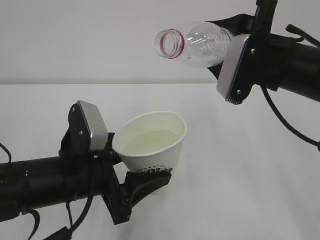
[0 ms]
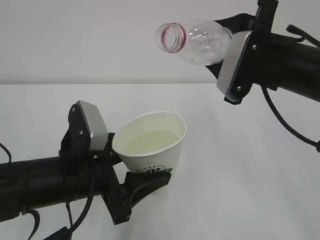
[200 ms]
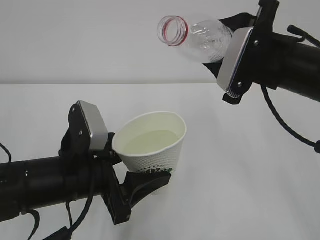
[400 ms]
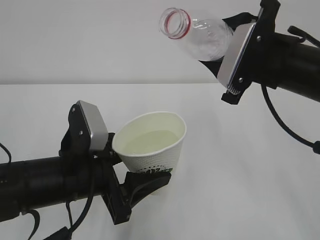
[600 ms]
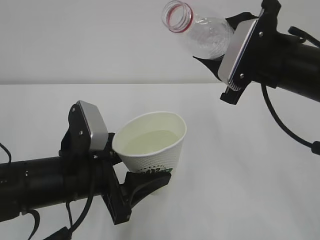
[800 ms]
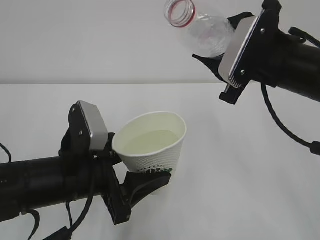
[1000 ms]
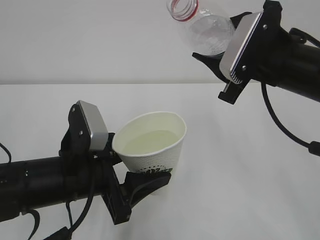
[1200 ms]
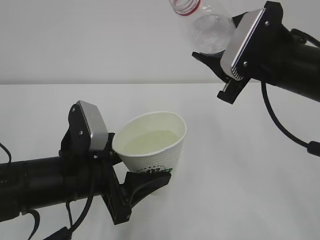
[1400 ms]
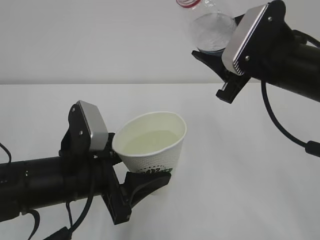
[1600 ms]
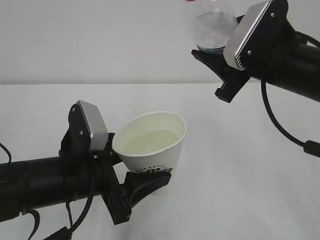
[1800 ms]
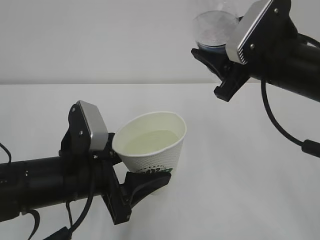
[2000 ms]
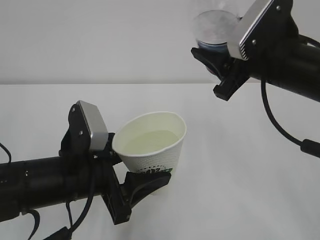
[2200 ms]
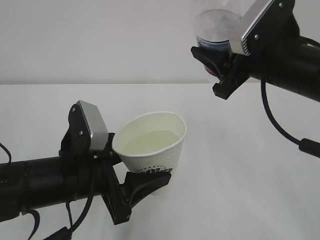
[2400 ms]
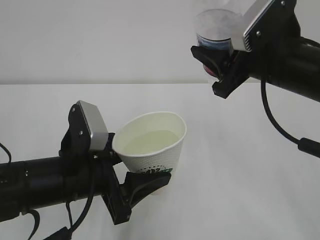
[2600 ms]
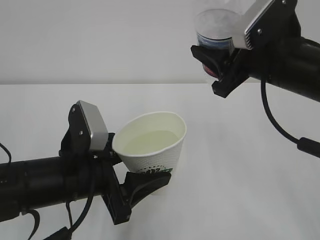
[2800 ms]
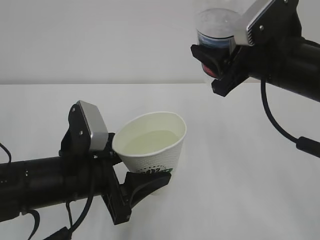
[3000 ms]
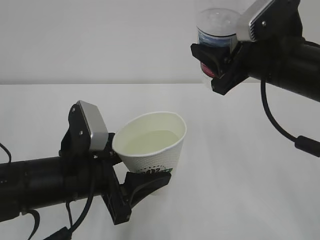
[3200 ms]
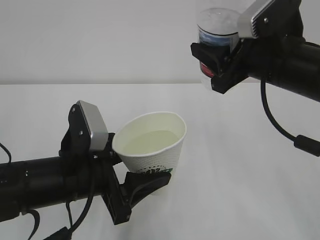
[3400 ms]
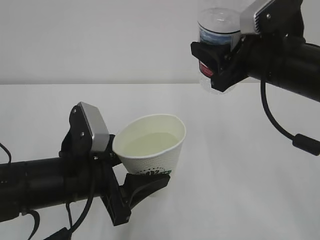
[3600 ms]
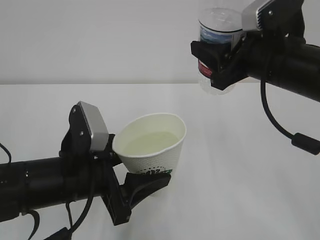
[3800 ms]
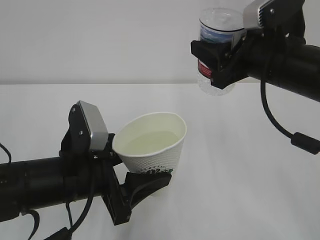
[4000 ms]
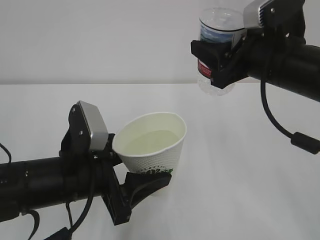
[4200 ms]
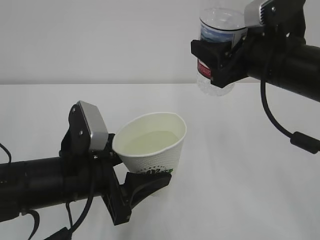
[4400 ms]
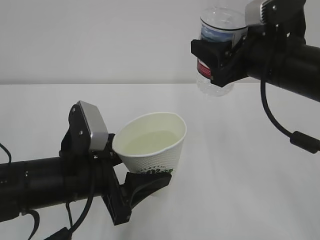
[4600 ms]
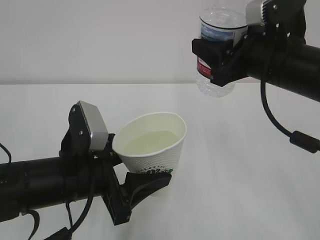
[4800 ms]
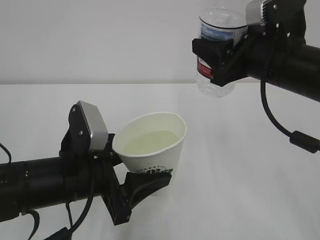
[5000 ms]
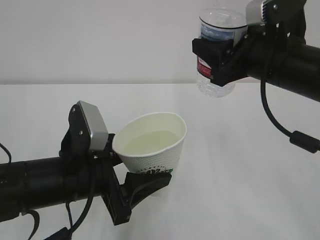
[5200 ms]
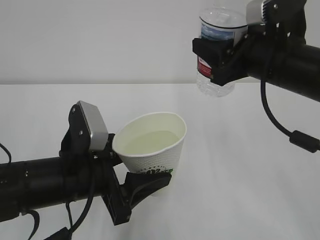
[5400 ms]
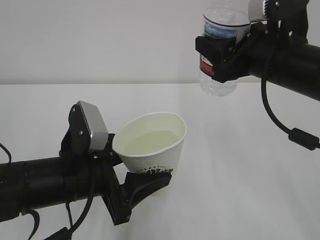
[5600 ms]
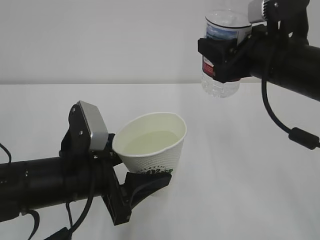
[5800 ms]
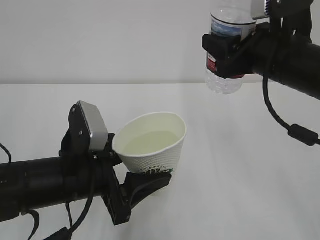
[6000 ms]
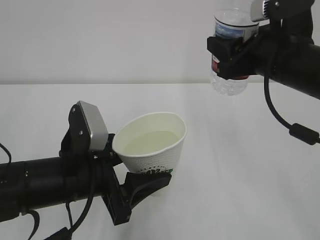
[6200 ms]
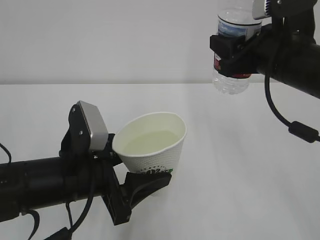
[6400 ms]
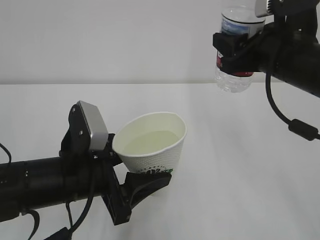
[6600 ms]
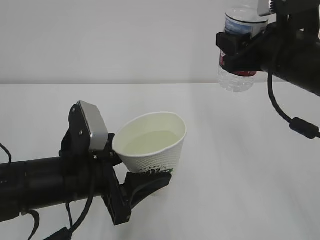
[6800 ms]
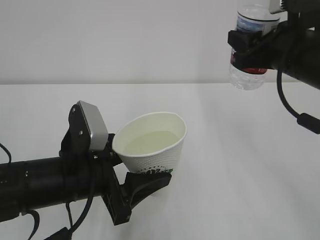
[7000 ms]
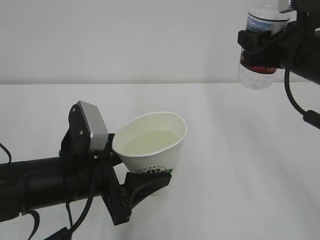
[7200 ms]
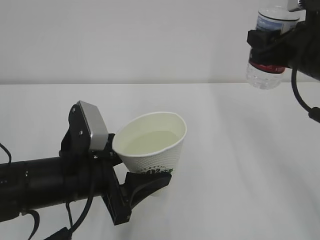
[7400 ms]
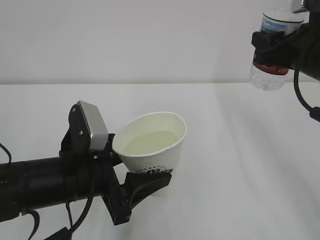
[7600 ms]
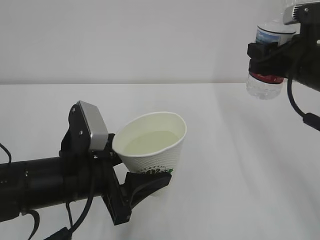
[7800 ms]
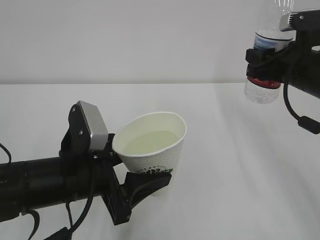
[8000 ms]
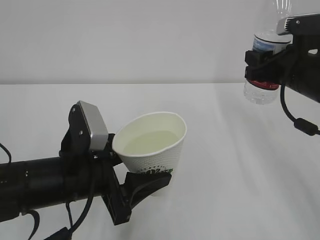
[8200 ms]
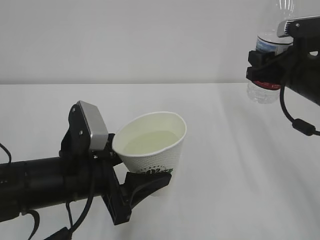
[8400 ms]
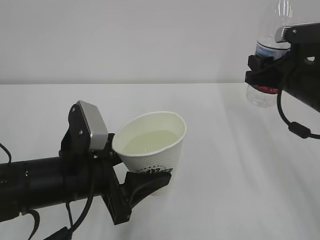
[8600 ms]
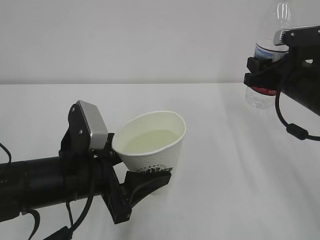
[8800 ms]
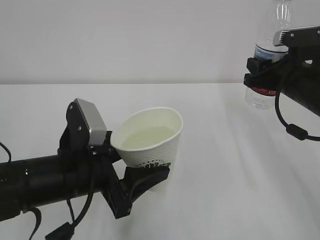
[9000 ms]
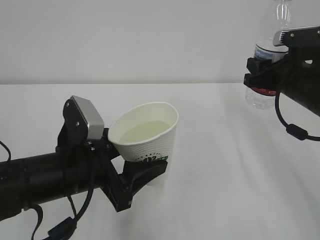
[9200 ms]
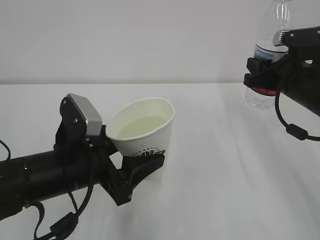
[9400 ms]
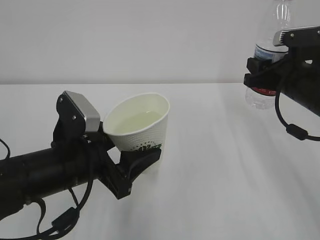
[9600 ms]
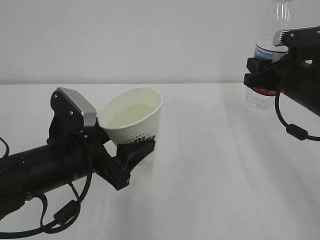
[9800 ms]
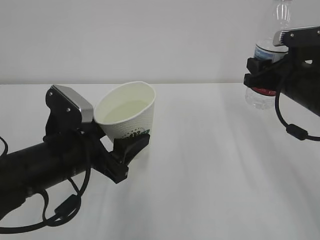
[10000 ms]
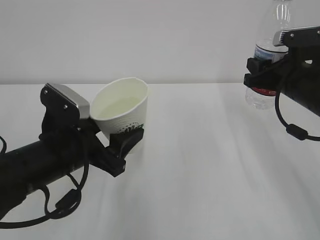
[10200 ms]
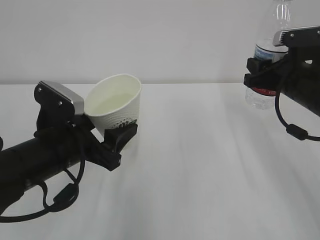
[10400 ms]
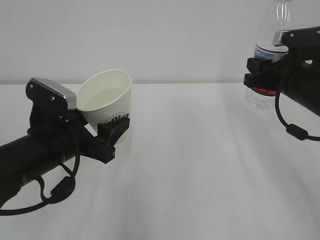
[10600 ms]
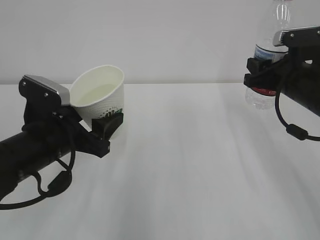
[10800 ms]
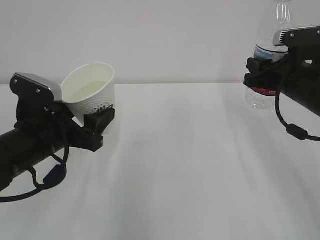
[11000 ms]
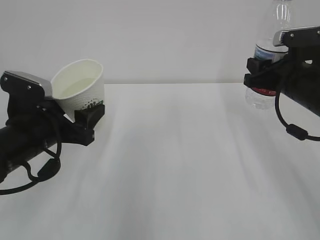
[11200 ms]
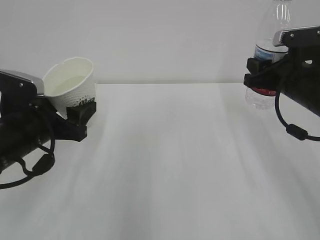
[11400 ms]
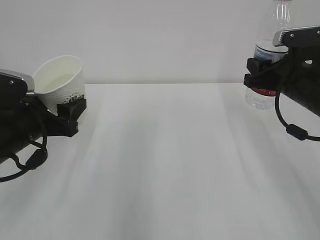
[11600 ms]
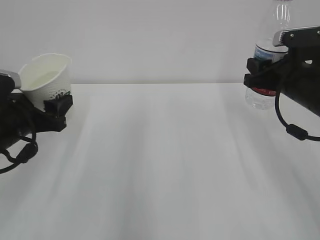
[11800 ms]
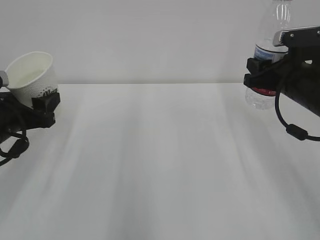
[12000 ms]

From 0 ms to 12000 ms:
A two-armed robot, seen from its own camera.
From 3000 ms to 4400 ms: The grippers move only a little.
From 4400 ms to 6000 ms: There are only small adjustments of the grippers.
From 6000 ms to 7600 ms: The right gripper travels to the right by roughly 5 cm.
From 7600 ms to 9000 ms: The right gripper travels downward by roughly 5 cm.
From 10400 ms to 12000 ms: The left gripper moves to the left, approximately 10 cm.

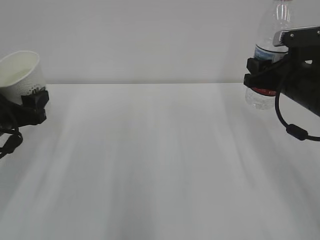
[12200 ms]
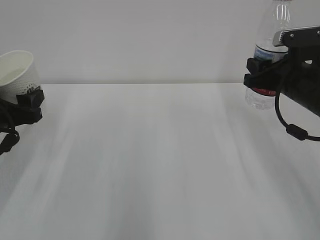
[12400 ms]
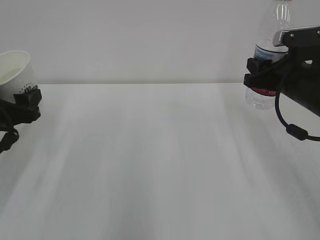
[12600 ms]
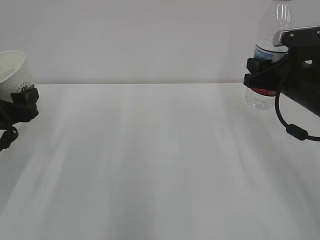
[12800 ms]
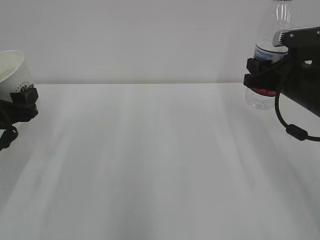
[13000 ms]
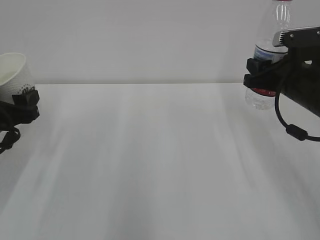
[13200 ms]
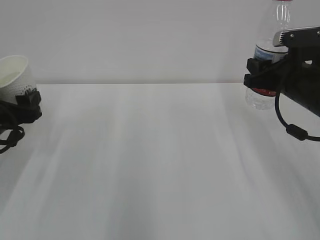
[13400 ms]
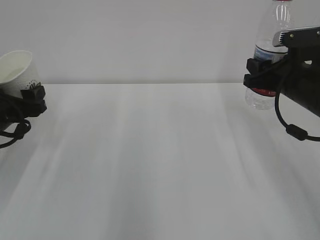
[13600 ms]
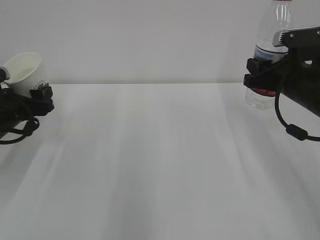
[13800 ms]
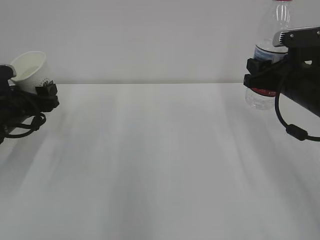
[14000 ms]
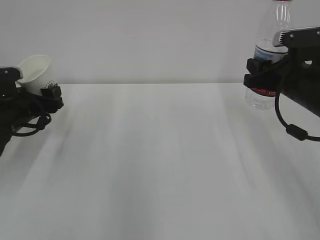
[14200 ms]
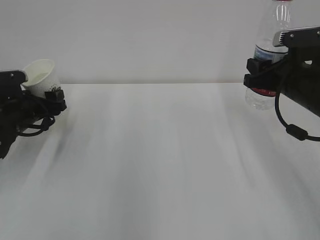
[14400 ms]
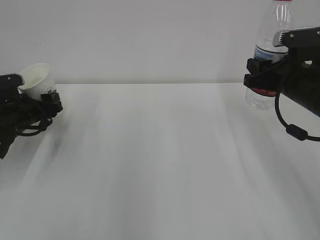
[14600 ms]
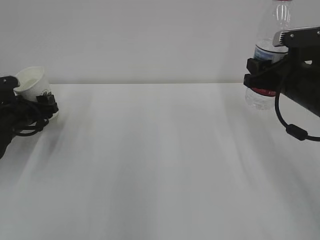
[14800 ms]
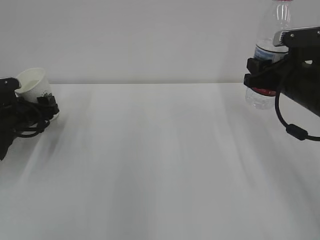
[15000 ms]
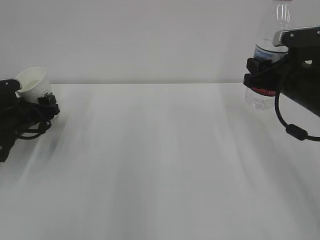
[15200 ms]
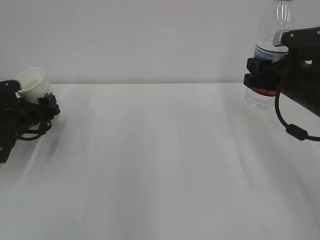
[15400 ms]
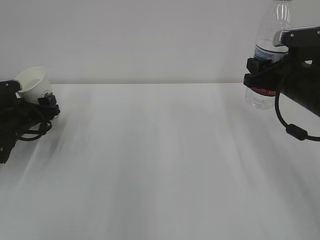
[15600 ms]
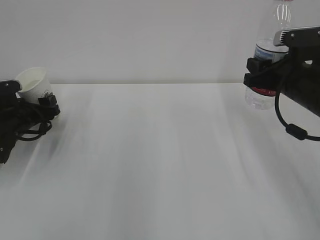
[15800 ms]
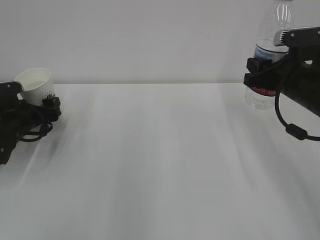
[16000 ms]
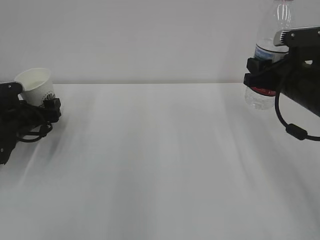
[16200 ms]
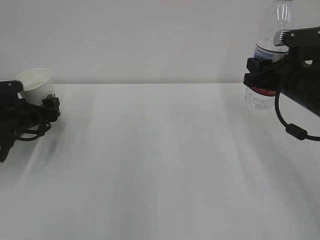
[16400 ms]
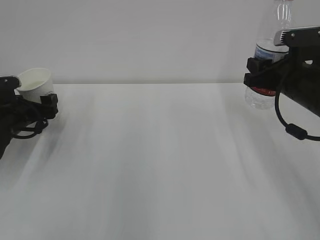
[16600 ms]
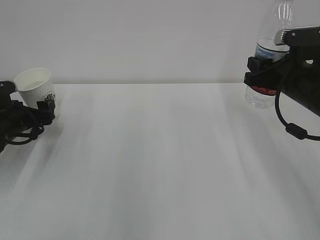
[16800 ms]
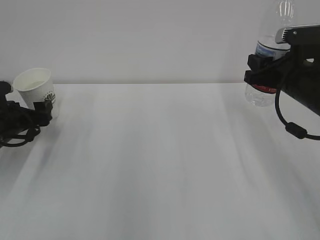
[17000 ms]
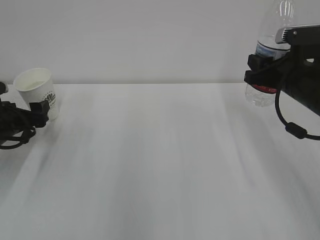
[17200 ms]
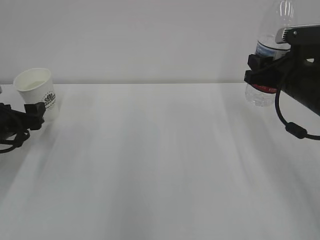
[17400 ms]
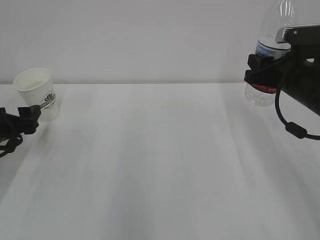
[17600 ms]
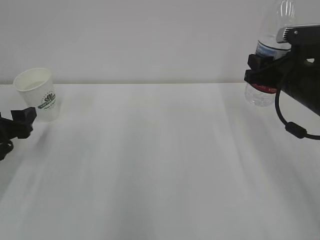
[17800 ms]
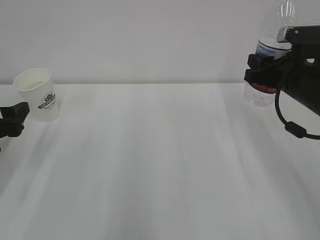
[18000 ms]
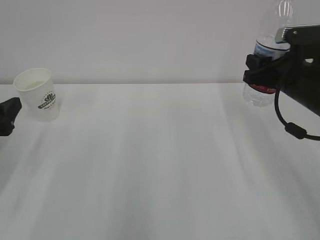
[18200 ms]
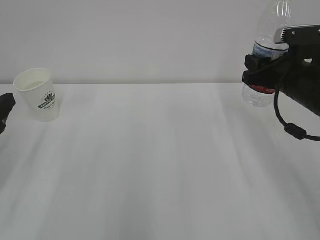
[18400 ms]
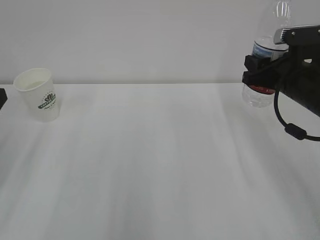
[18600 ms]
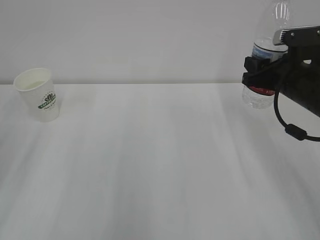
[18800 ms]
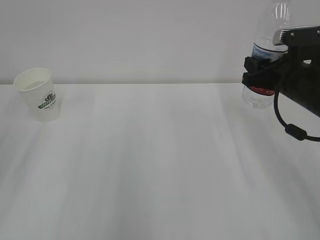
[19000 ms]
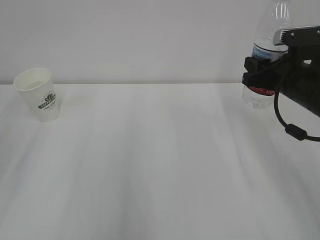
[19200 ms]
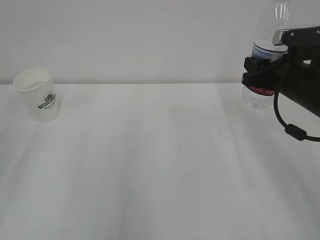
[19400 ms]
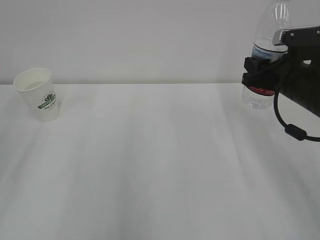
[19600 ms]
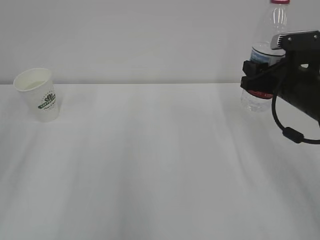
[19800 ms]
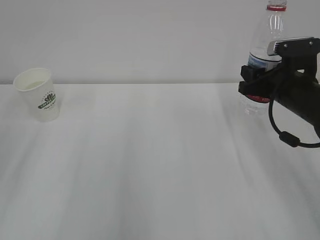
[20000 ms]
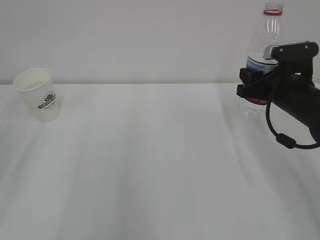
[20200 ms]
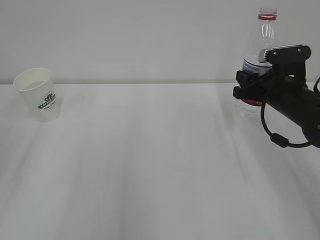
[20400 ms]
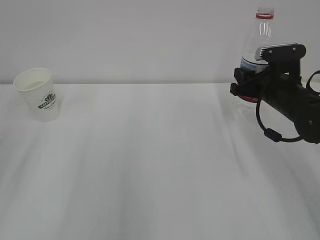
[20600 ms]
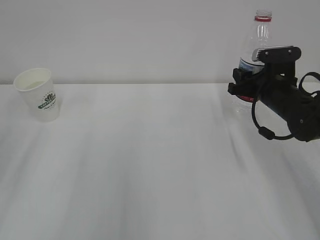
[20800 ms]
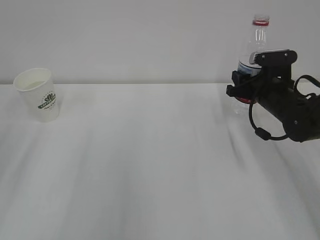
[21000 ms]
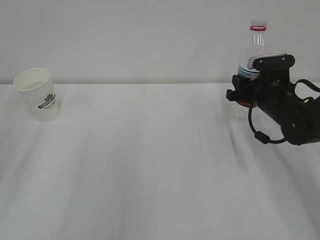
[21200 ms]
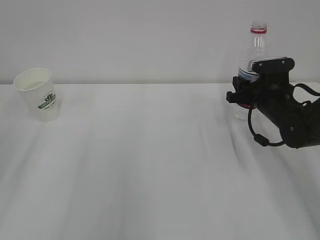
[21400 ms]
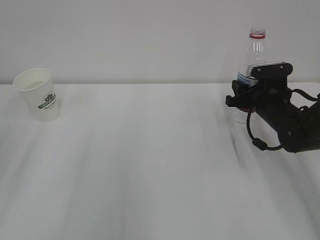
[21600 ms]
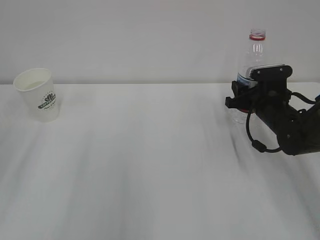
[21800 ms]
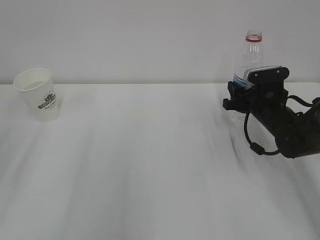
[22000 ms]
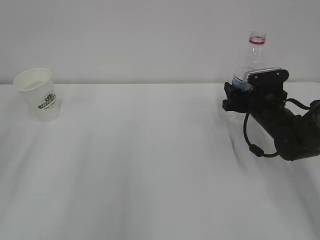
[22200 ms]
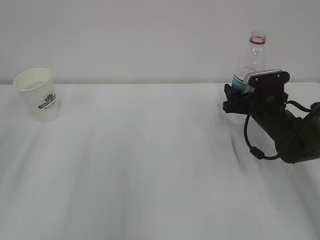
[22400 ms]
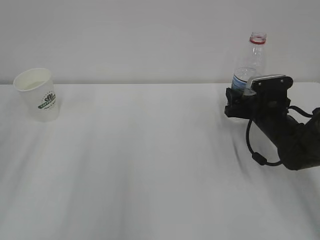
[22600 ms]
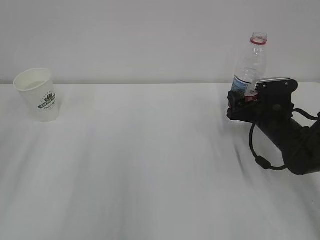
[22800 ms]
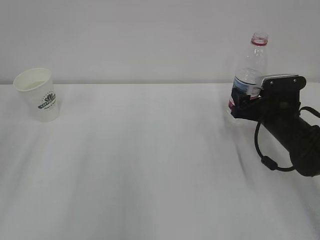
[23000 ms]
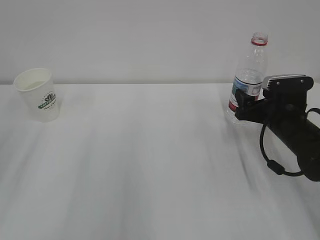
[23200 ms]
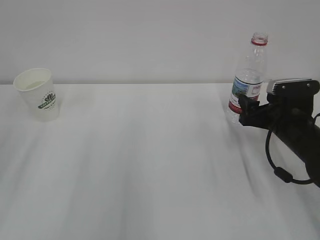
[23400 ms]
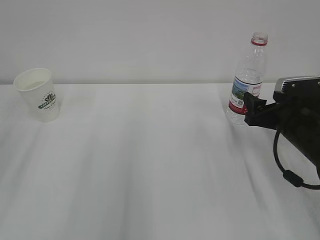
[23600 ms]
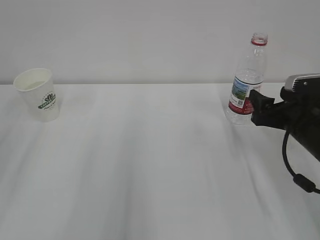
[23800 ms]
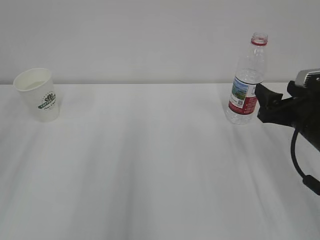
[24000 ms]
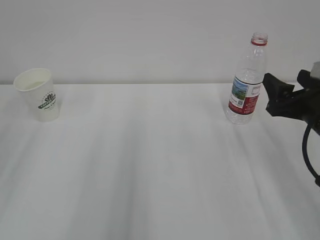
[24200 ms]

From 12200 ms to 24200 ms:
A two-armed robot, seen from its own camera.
From 12200 ms to 13800 ms: The left gripper moves about 5 cm.
From 13800 ms to 15200 ms: The left gripper travels downward and forward by about 10 cm.
From 15200 ms to 16600 ms: The left gripper opens.
From 16600 ms to 18200 ms: The left gripper heads backward and upward, covering some 15 cm.
From 18200 ms to 19800 ms: The left gripper is displaced upward and backward by roughly 10 cm.
From 19800 ms to 21200 ms: The right gripper goes some 10 cm downward and forward.
From 21200 ms to 22600 ms: The right gripper opens its fingers.
From 22600 ms to 24200 ms: The right gripper moves backward and upward, roughly 15 cm.
